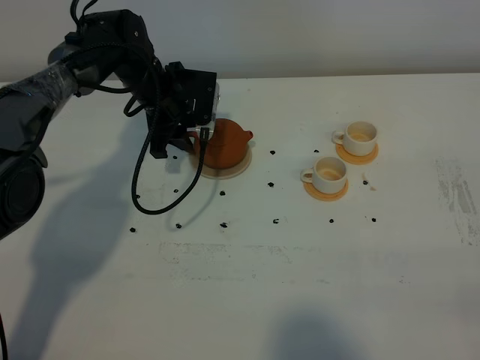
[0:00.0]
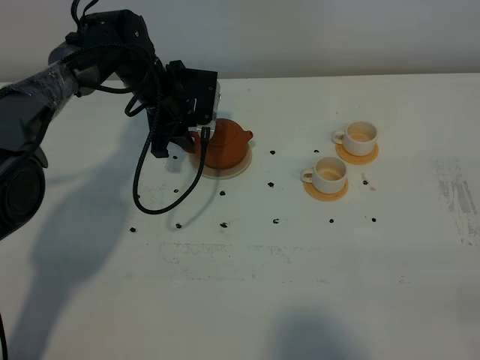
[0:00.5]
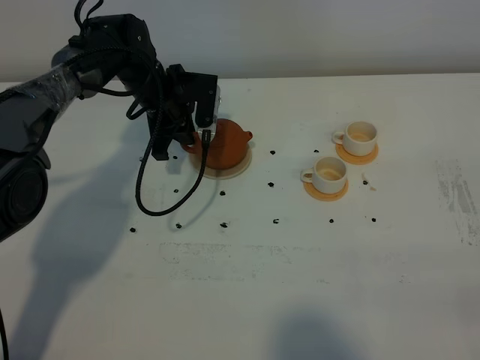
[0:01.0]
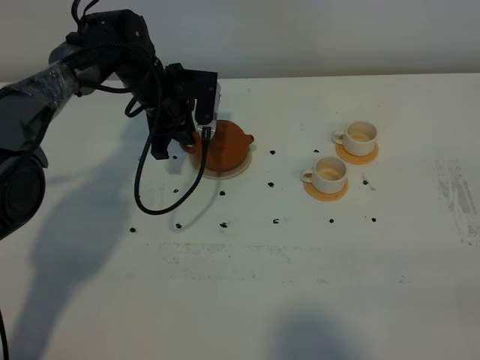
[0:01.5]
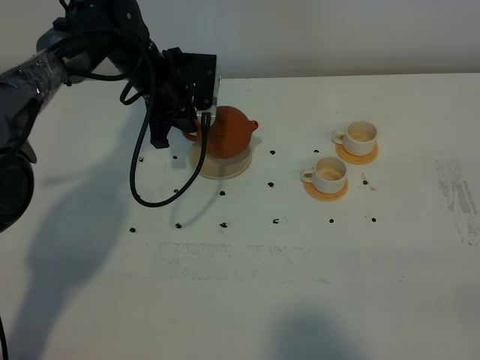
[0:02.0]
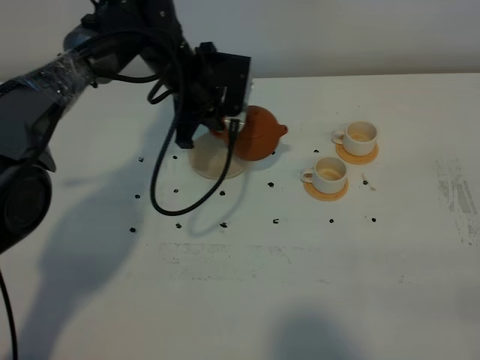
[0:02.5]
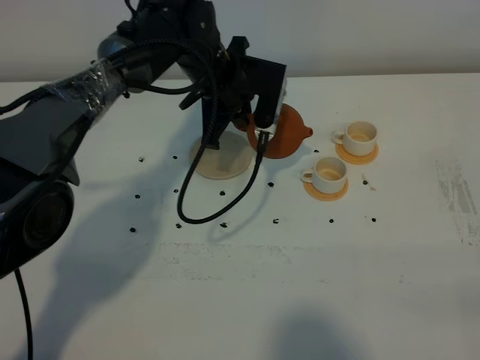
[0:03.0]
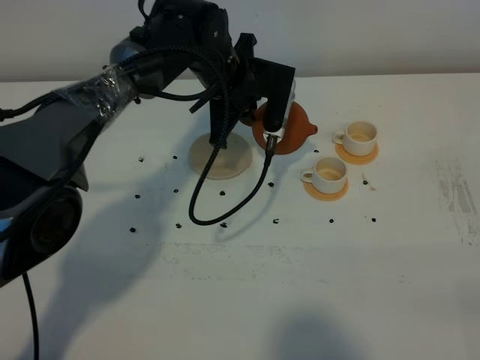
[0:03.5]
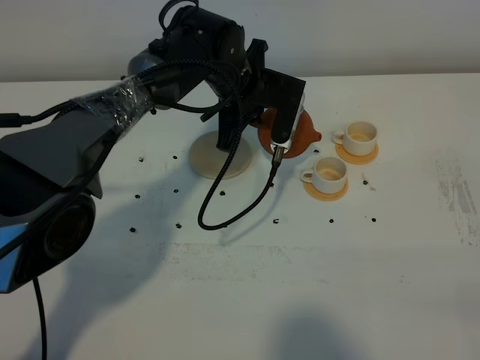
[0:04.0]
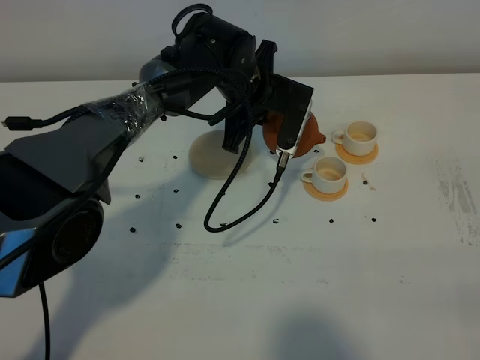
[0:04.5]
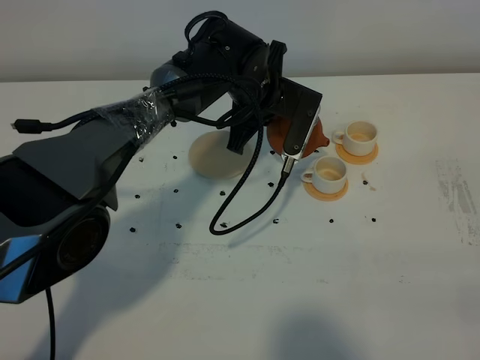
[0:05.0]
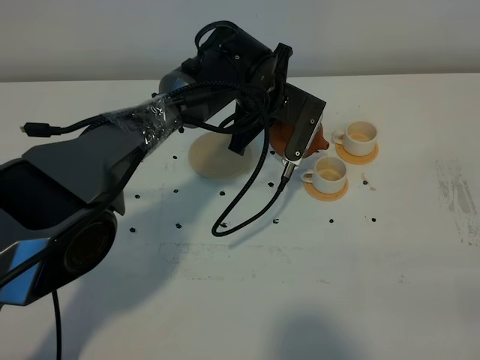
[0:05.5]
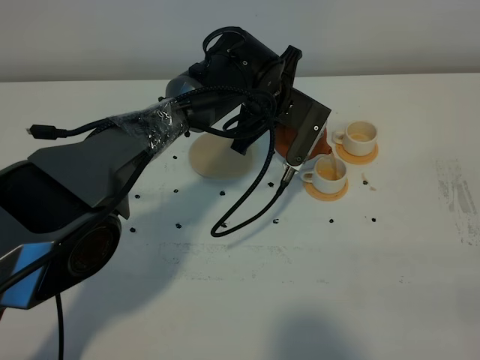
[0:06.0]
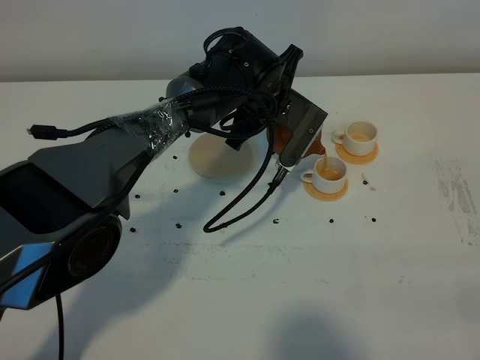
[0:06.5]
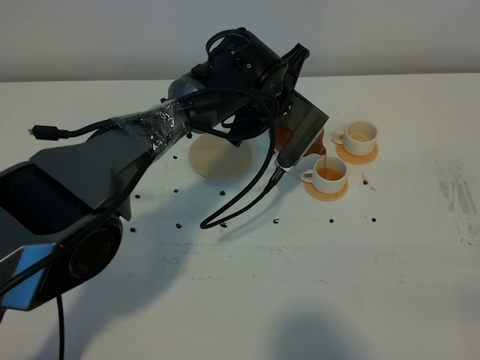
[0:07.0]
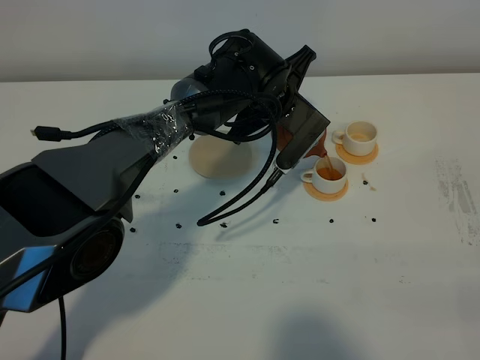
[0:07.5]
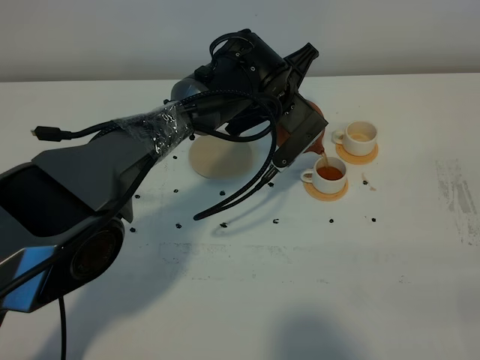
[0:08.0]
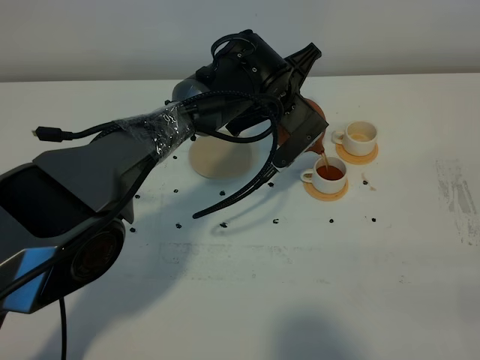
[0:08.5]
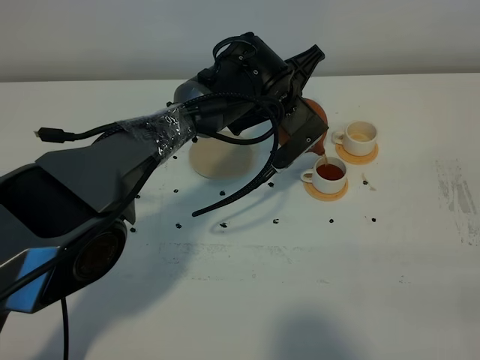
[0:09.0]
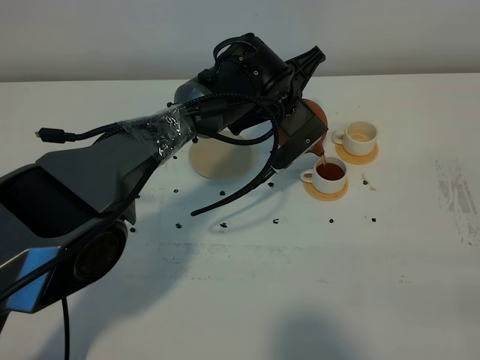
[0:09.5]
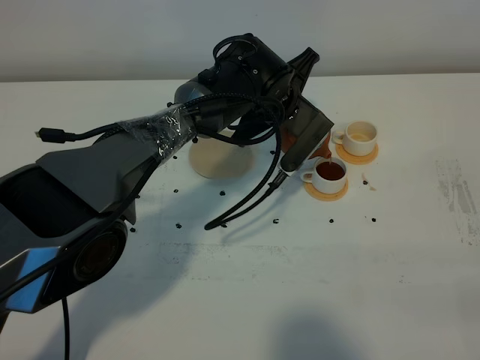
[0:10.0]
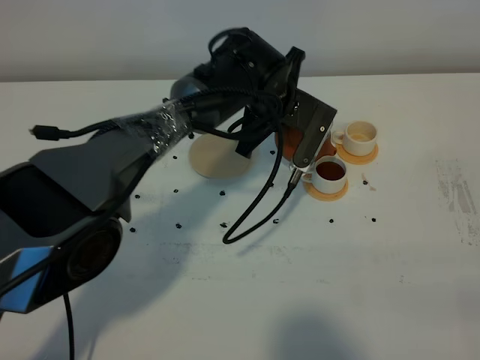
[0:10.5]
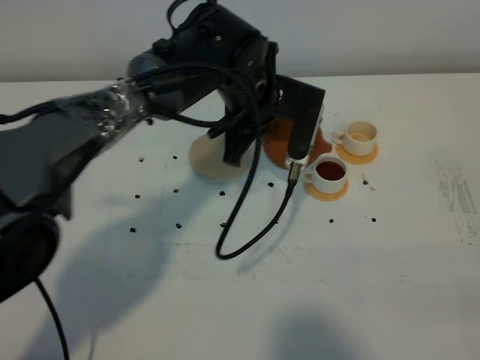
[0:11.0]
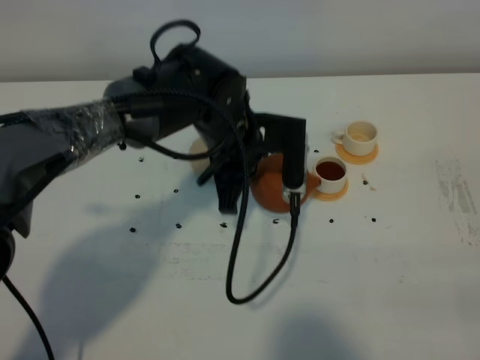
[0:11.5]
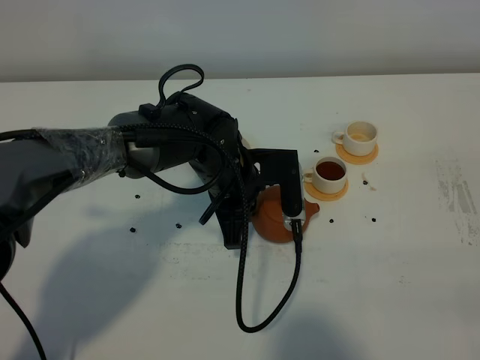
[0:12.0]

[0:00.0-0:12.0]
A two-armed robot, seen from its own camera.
Task of the whole recording: grasp the brown teapot and pour the tea into the two white teacups one by one, put the brown teapot back in its original place.
Step, 0:02.0 to 0:10.0: Pour tea into the teacup with the left gripper.
0:00.0 to 0:02.0: The left gripper closes up.
0:02.0 to 0:04.0: The left gripper is displaced to the right by approximately 10 cm.
0:06.0 to 0:08.0: The grippers move only a little.
0:08.0 to 0:10.0: The grippers move only a little.
0:10.0 to 0:12.0: The left gripper moves backward and to the left, some 10 cm.

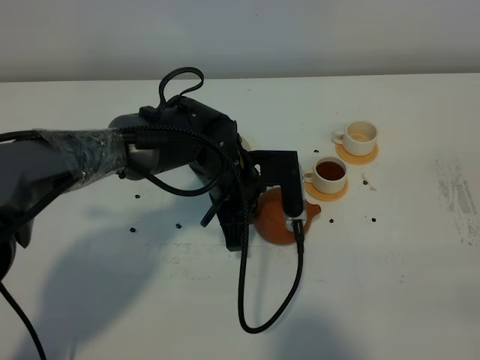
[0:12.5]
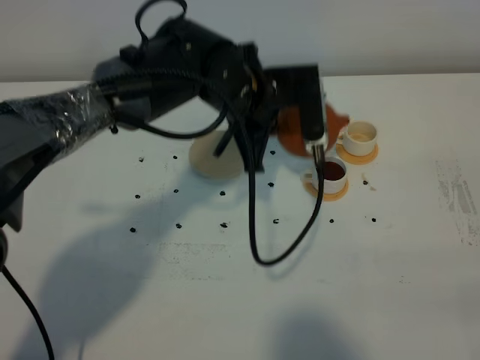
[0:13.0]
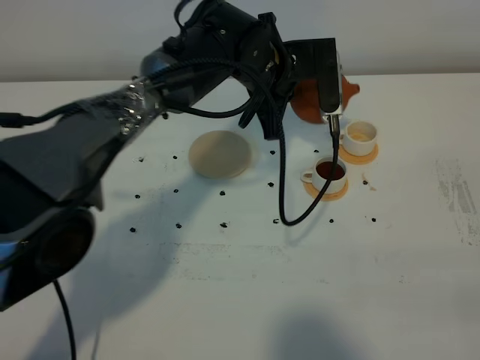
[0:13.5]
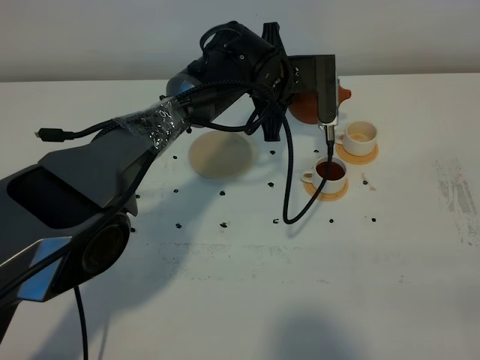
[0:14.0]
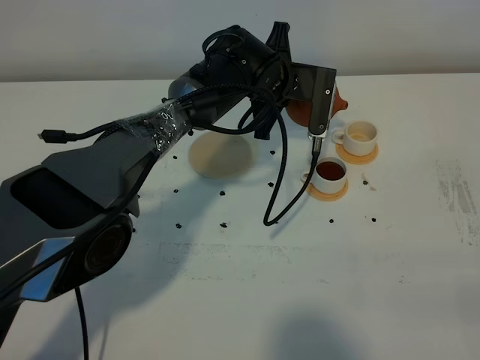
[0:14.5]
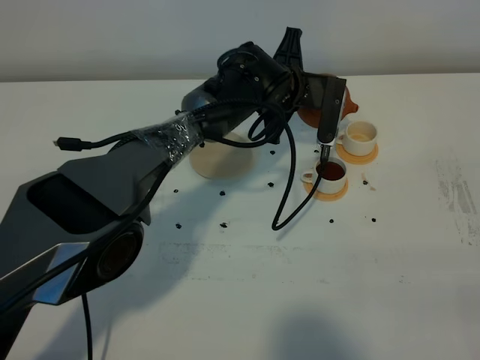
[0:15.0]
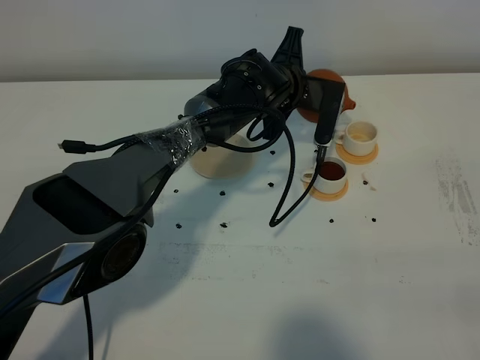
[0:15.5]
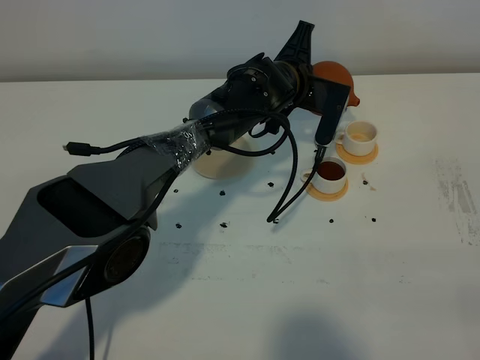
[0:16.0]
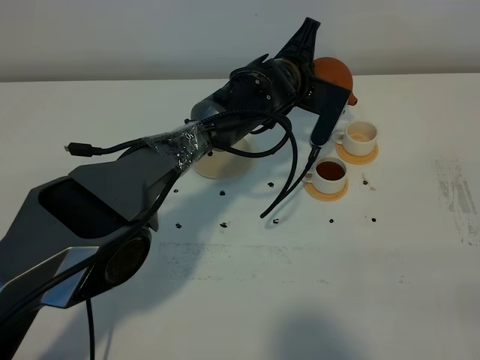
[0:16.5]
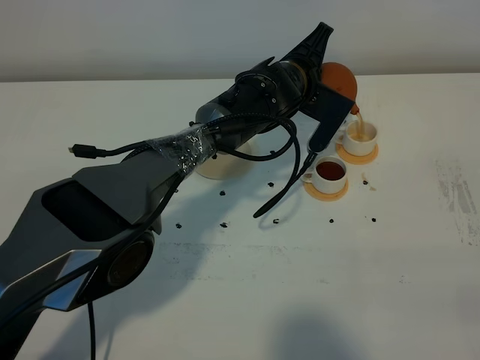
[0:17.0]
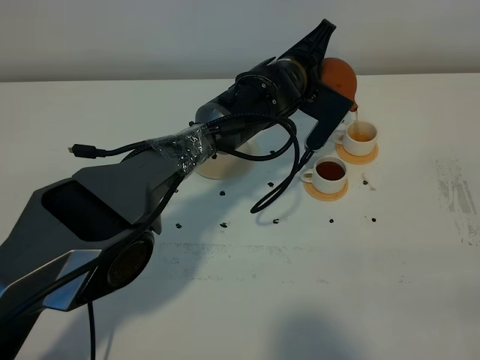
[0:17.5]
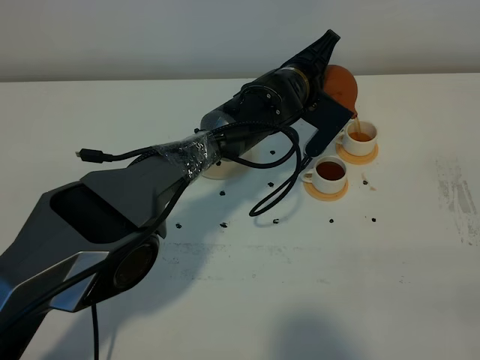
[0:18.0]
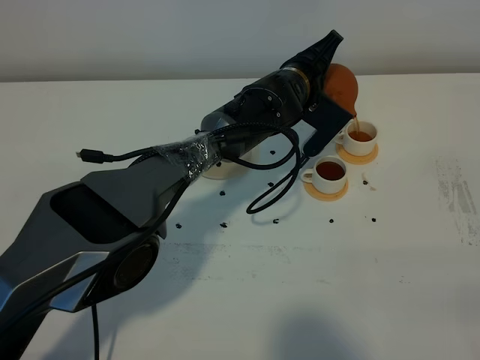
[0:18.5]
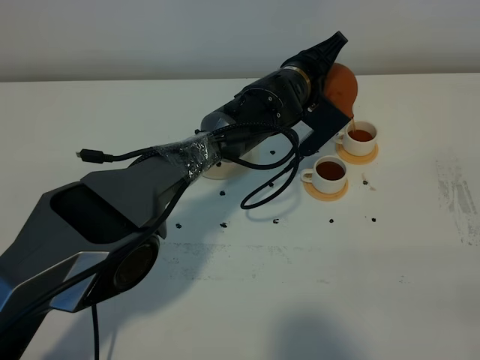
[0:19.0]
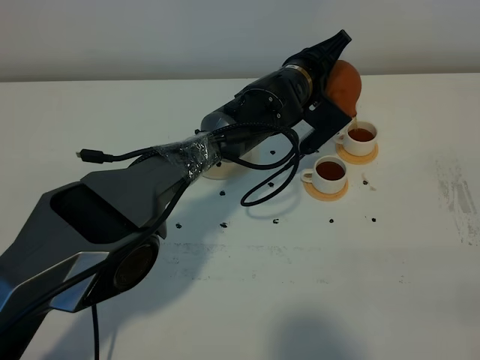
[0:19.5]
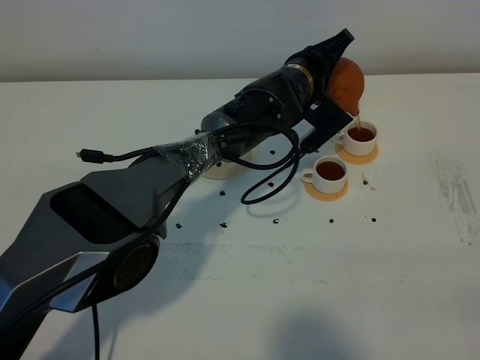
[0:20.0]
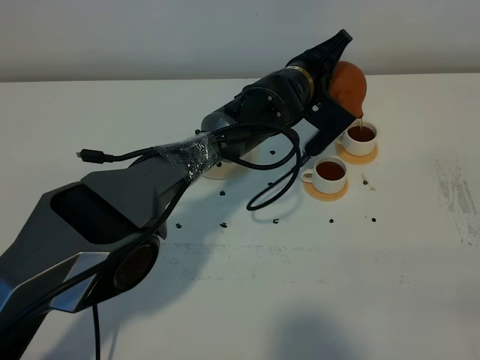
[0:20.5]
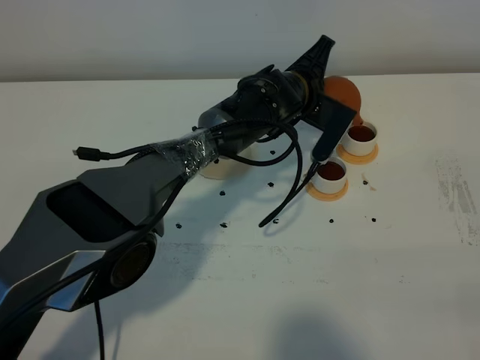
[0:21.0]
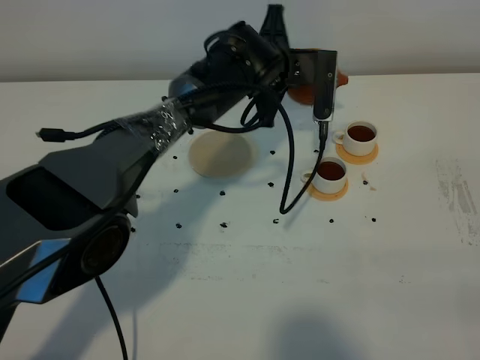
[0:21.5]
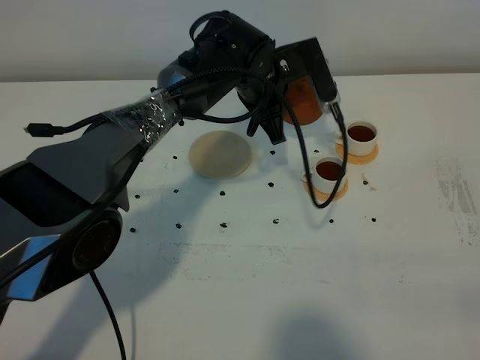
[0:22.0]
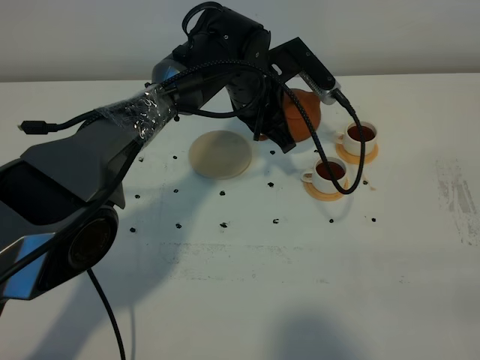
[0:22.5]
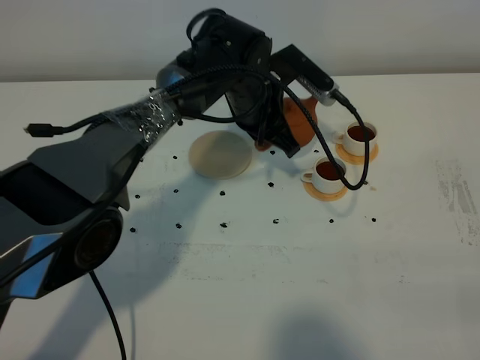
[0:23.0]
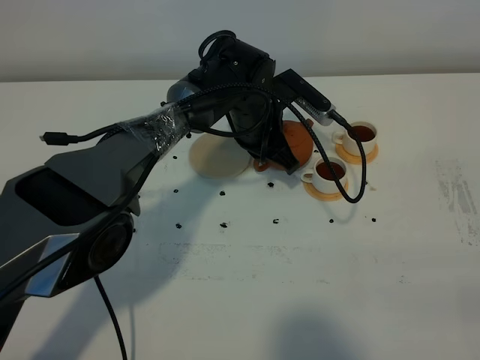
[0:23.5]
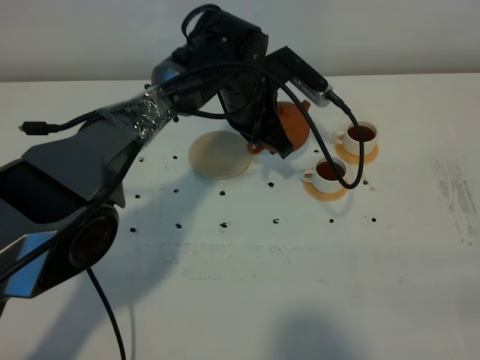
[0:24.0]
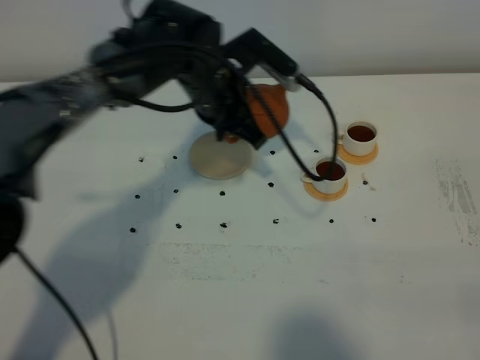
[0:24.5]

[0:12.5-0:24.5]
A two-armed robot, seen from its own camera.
Task of the whole recording: grasp the brown teapot and pour the tea into the two white teacups one by one, put the brown teapot back in its original place.
Step, 0:12.5 to 0:21.0: Pour tea into the teacup with the left gripper.
0:12.5 to 0:14.5: The left gripper goes about 15 cm forward and to the right.
0:16.5 to 0:18.5: There are only small adjustments of the grippers.
0:18.5 to 0:20.5: The grippers make only small movements.
0:20.5 to 0:22.5: The left gripper heads to the left, covering roughly 5 cm.
0:22.5 to 0:24.5: The left gripper moves to the left, about 5 cm.

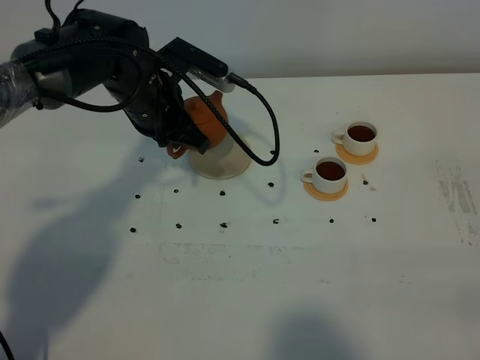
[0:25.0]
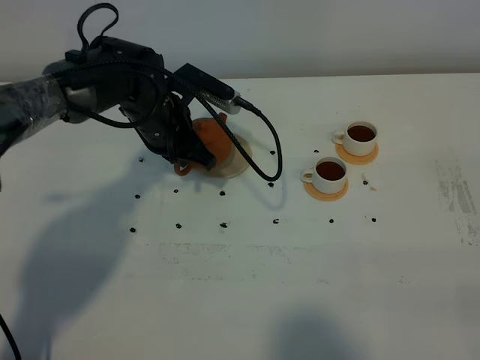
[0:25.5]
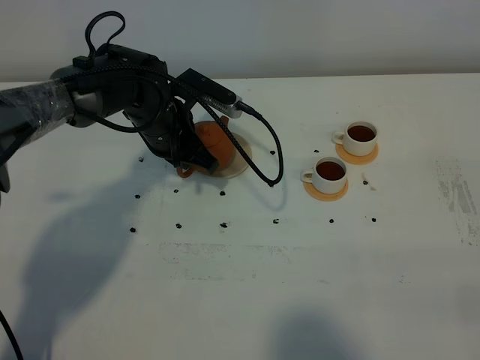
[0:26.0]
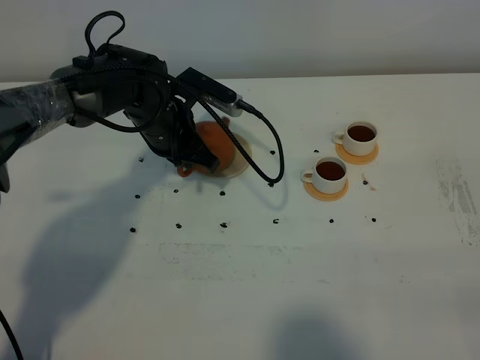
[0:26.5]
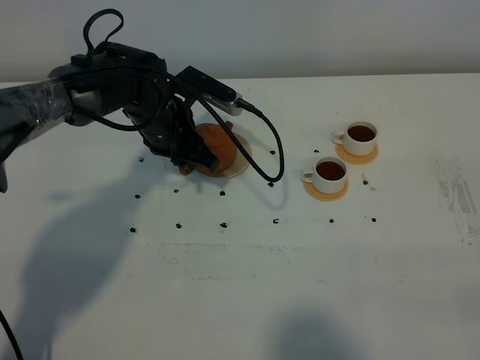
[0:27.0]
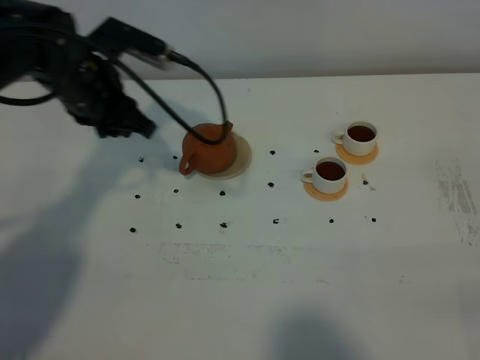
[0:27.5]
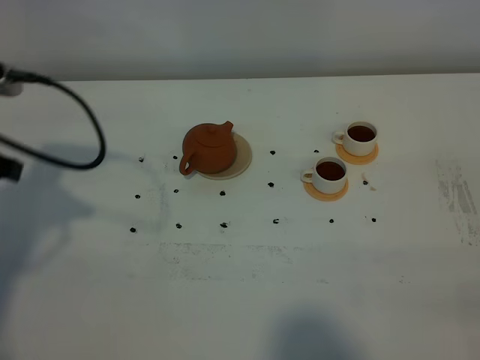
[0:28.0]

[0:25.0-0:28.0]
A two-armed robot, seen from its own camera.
Task of the whole recording: grasp the brown teapot and pour the tea into the two white teacups one by one, put the brown teapot back in its original place.
0:25.0 to 0:26.5: The left gripper travels downward by about 5 cm.
0:26.5 to 0:28.0: The left gripper shifts some 30 cm to the left, backward and upward, and opens.
